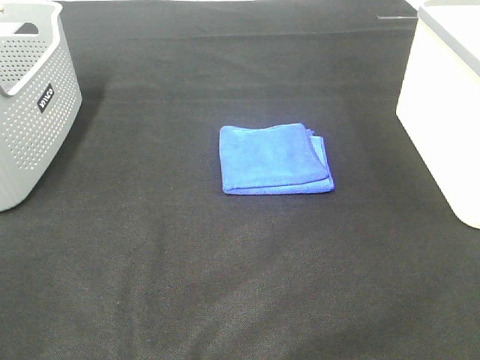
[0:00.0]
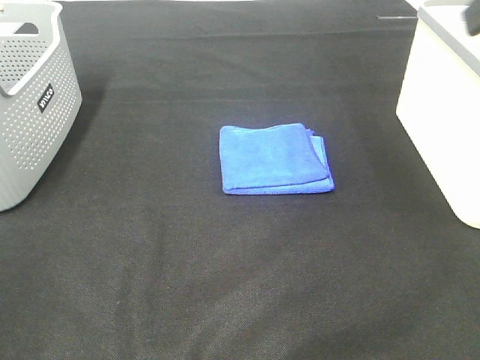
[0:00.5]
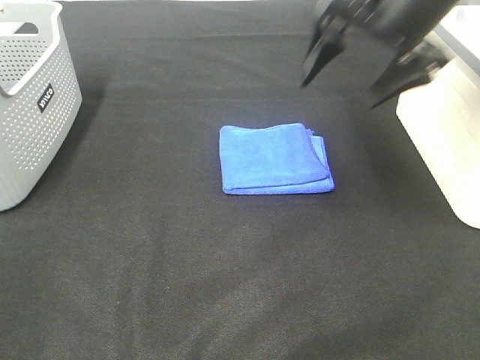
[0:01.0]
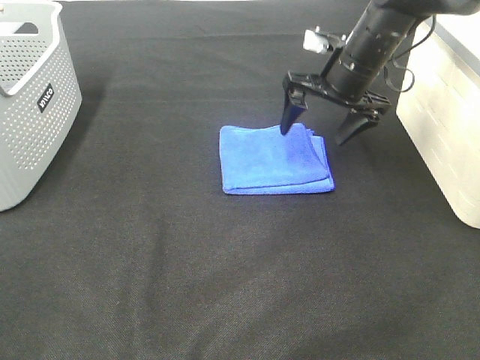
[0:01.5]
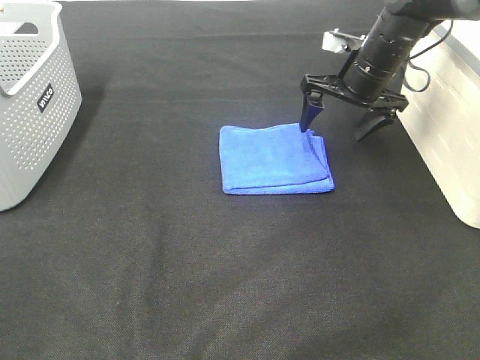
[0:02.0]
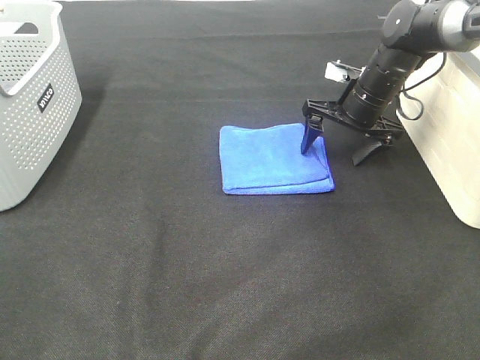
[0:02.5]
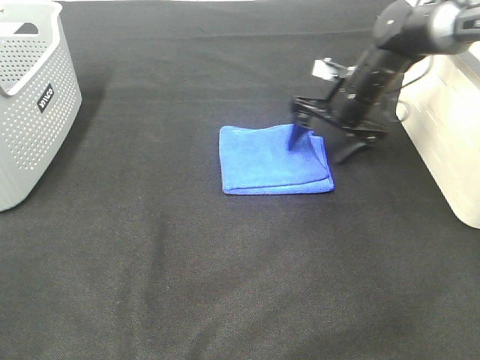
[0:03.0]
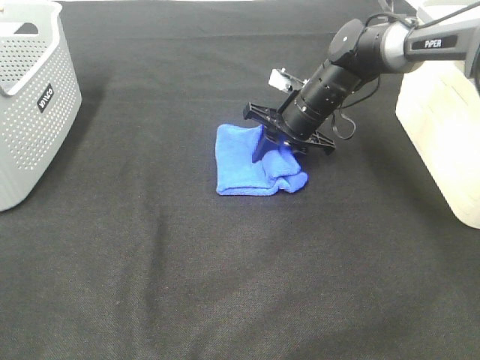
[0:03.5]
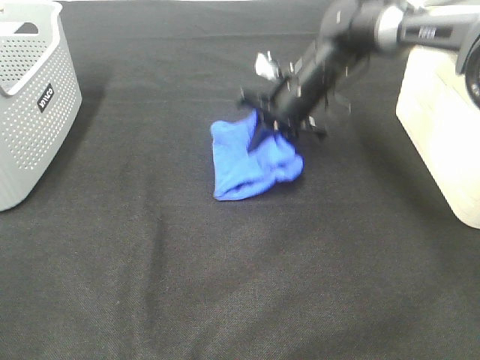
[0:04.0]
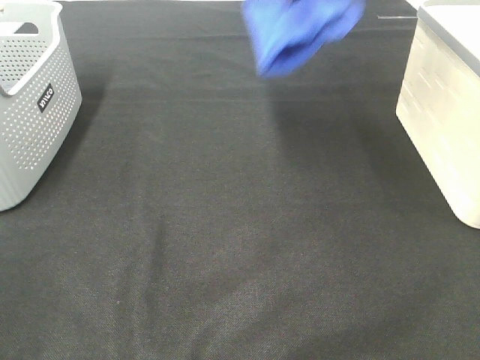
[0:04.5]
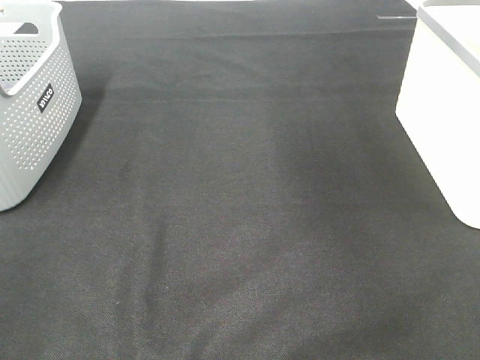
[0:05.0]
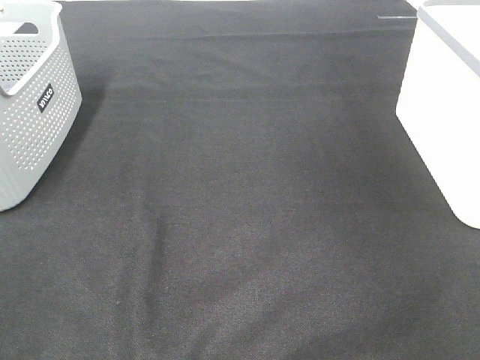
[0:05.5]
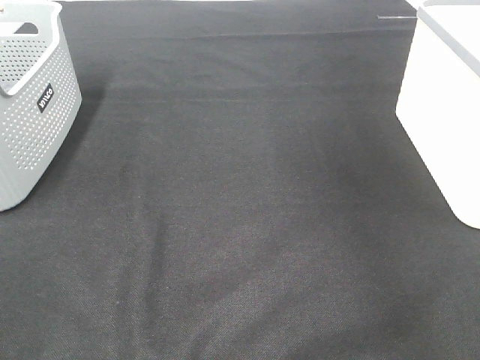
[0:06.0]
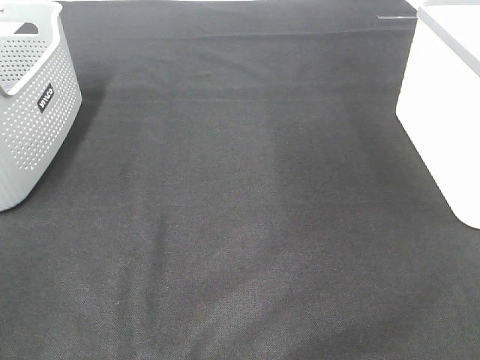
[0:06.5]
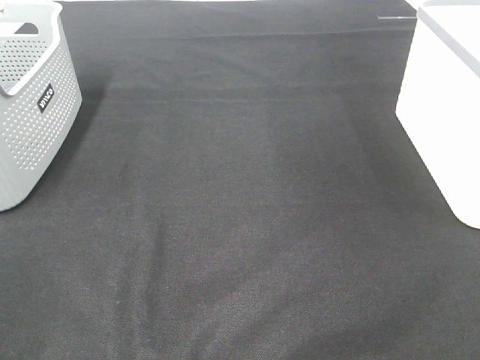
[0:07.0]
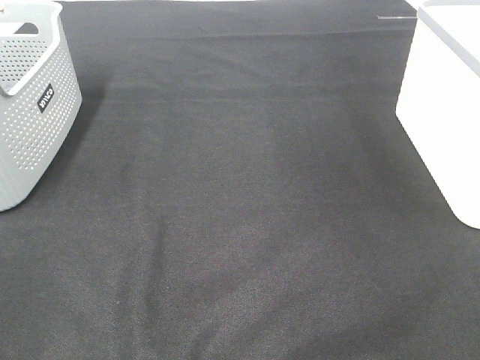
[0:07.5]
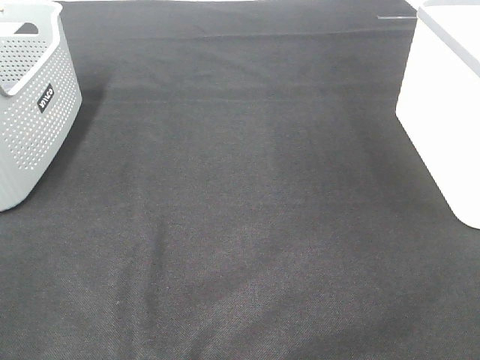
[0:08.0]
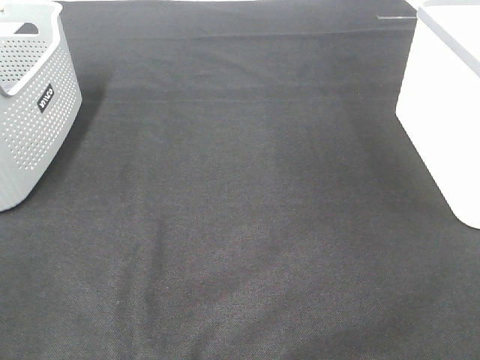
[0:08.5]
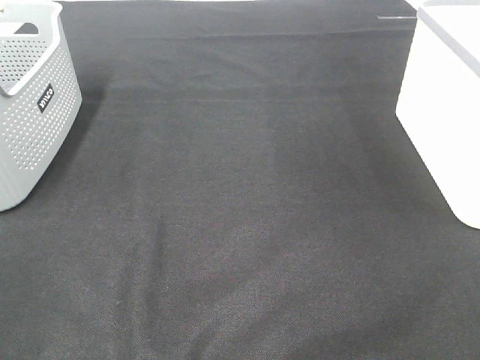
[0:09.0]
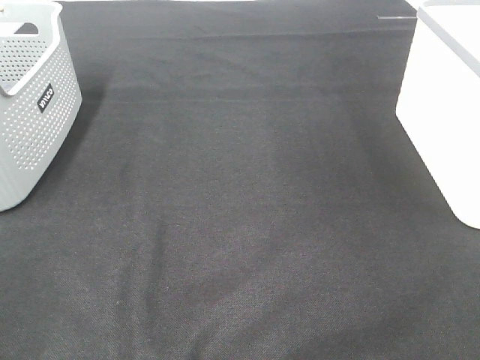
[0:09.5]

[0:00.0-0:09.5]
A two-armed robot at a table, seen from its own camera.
Step, 0:00.0 to 0:03.5: Right hand: grab the folded blue towel.
Step, 0:04.0 to 0:05.5: Right hand: place the blue towel in right basket.
0:00.0 to 0:02.0: The right gripper goes roughly 40 cm forward and downward.
0:02.0 to 0:04.0: The right gripper moves to the left, some 10 cm, and closes its fingers.
0:04.0 to 0:05.5: The right gripper heads to the right and upward, covering roughly 40 cm, and opens.

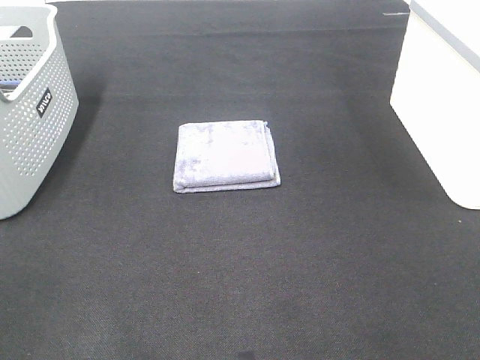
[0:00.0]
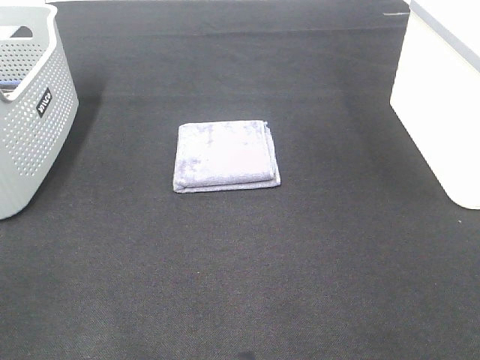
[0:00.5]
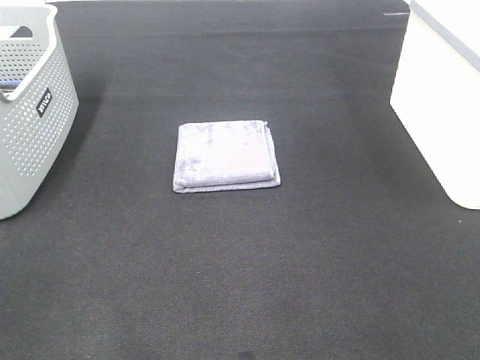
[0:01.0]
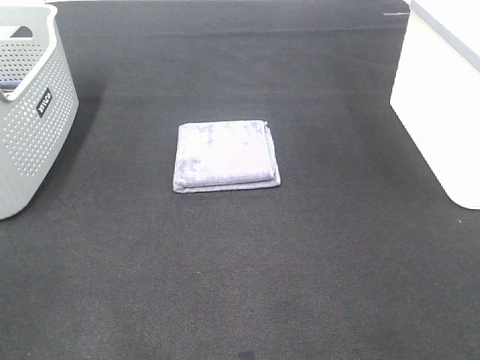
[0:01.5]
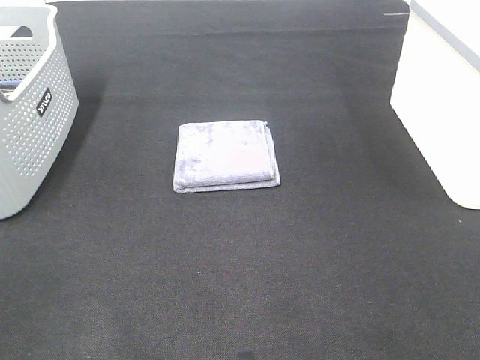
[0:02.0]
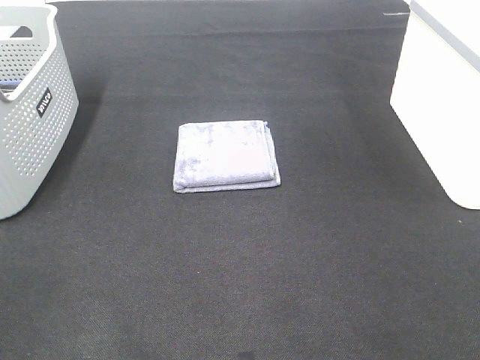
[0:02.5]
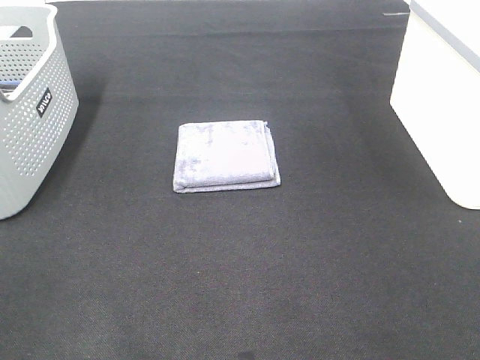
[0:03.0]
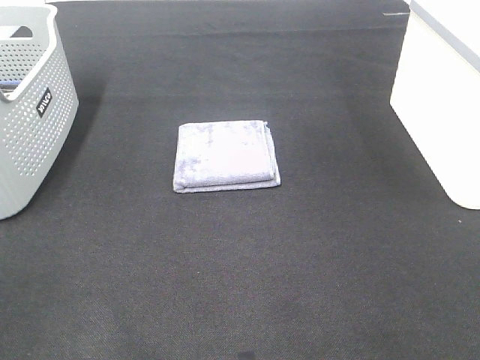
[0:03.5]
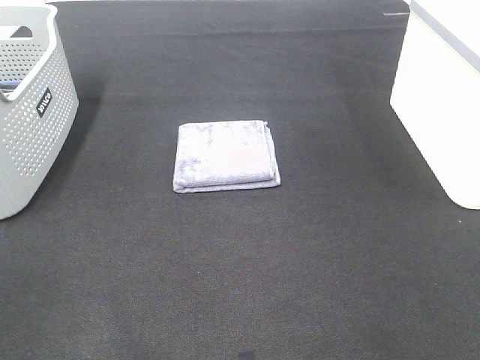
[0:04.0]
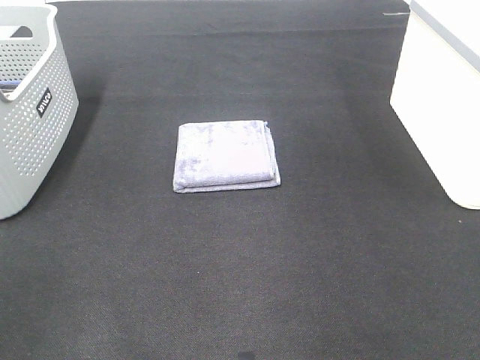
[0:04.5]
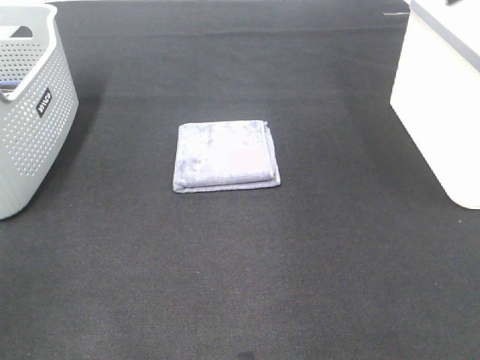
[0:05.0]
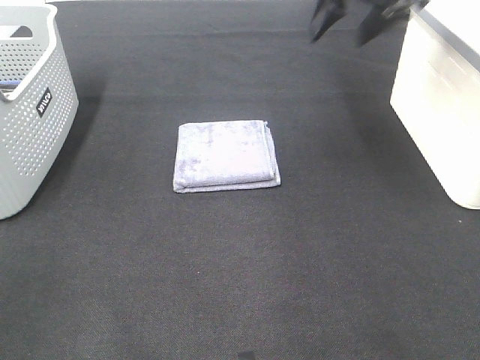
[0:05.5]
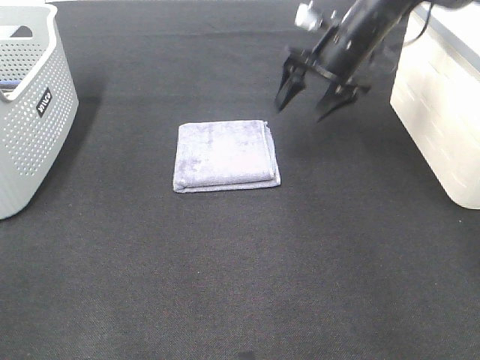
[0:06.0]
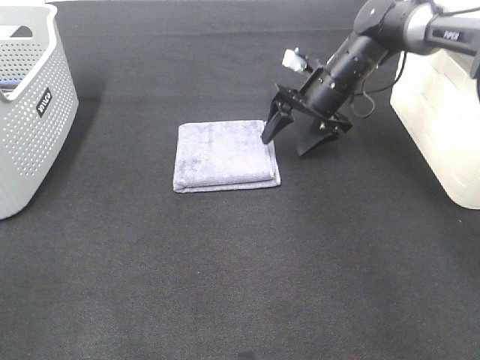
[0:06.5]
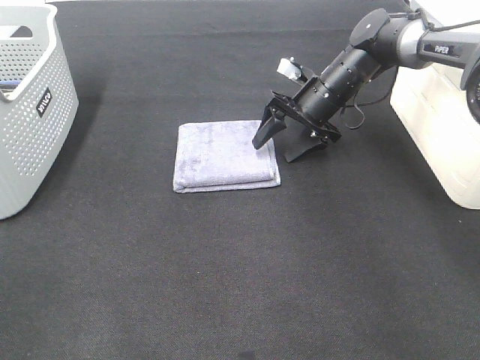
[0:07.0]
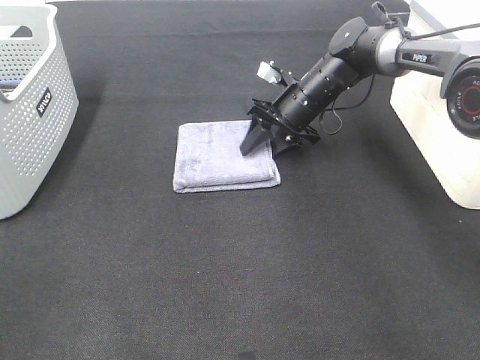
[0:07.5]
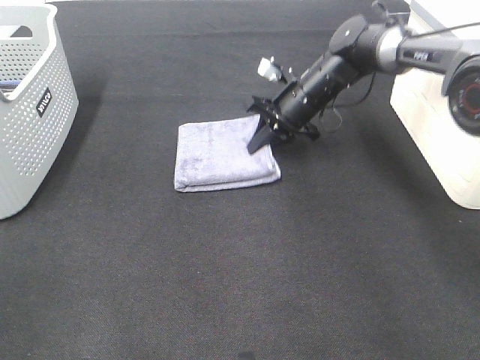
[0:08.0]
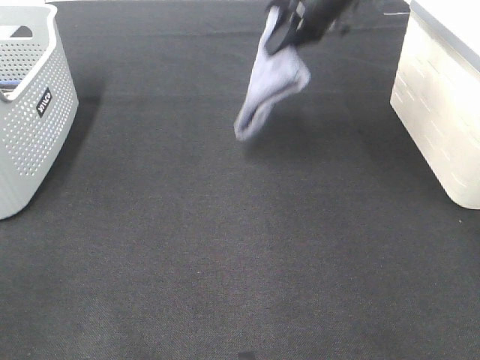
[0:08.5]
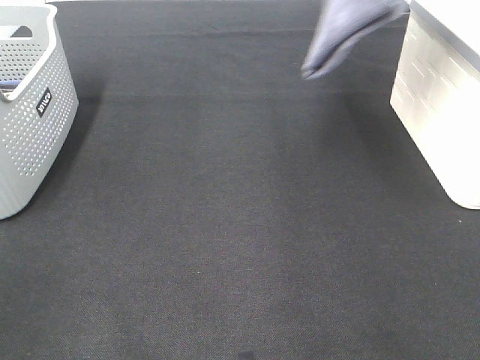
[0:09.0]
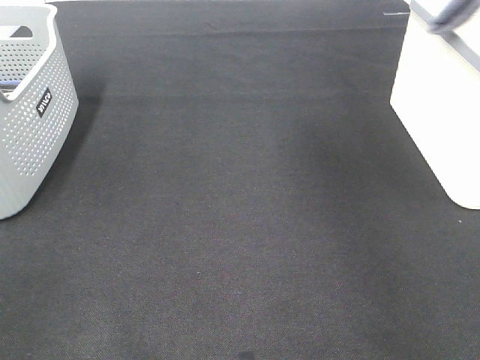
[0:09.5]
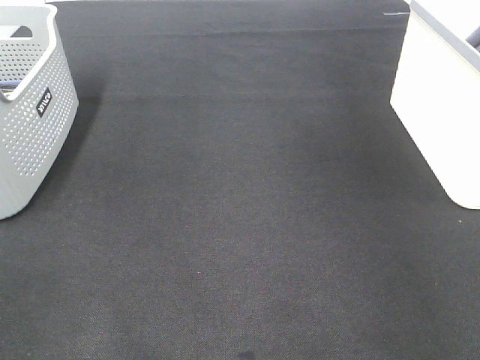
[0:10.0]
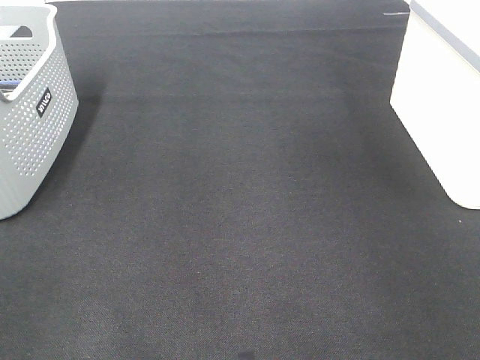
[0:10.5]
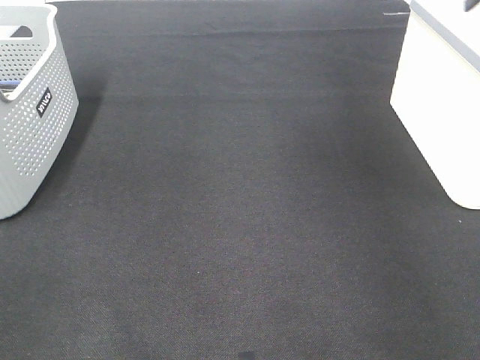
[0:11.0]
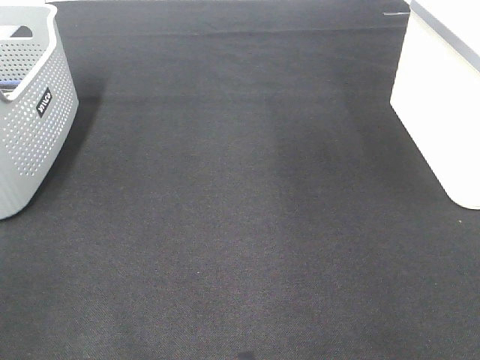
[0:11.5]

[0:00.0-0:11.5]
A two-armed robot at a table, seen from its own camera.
Step, 0:00.0 to 0:07.5: Right hand: grab the folded grey towel.
Step, 0:08.0 to 0:10.5: Right hand: place the grey towel in right basket.
0:00.0 to 0:02.0: Both grippers stay put.
0:04.0 to 0:06.0: The right gripper heads forward, covering approximately 50 cm.
0:06.0 to 0:07.5: The right gripper goes about 10 cm downward, and closes its fingers.
0:07.5 to 0:09.5: The right gripper goes approximately 40 cm upward and to the right, and closes.
0:09.5 to 0:11.5: The right gripper goes some 10 cm to the left, and opens.

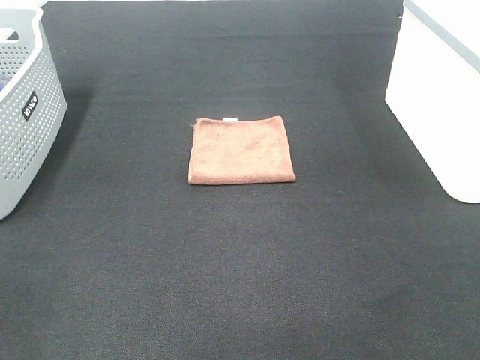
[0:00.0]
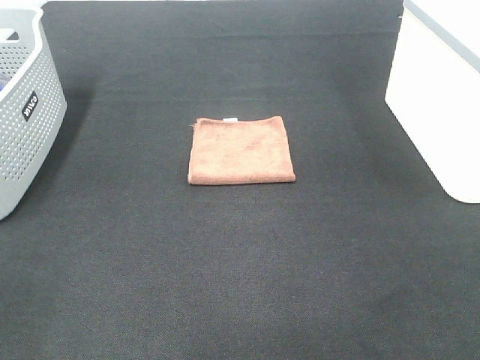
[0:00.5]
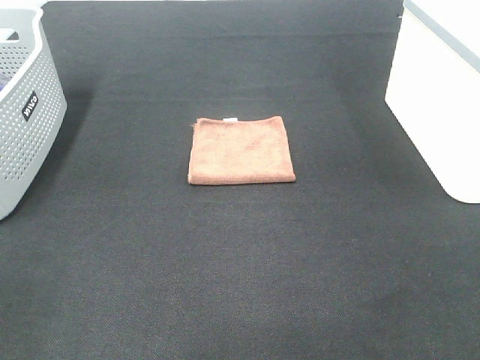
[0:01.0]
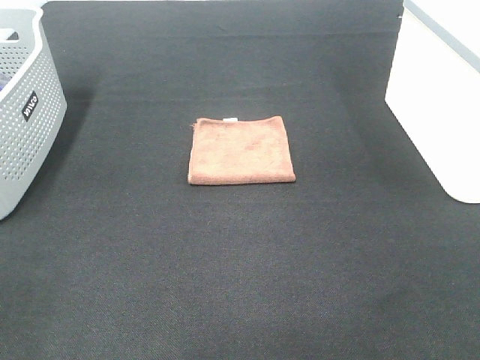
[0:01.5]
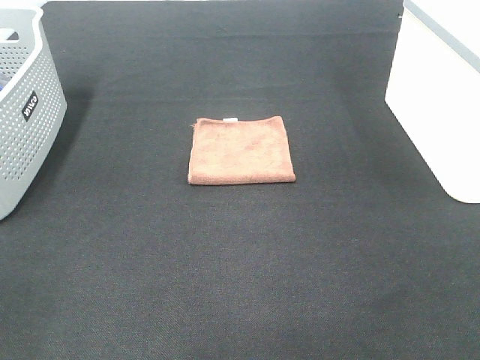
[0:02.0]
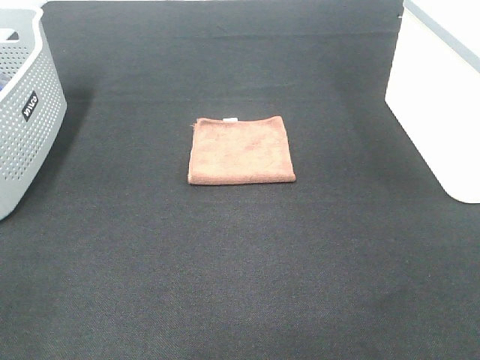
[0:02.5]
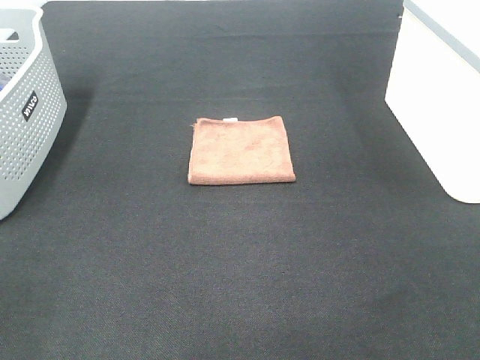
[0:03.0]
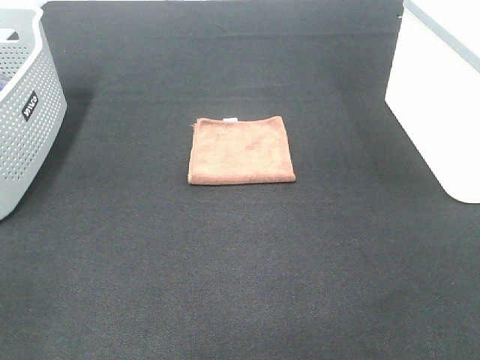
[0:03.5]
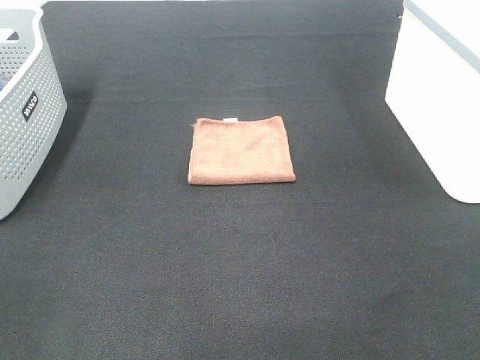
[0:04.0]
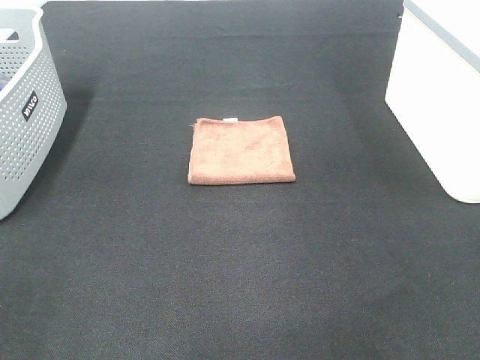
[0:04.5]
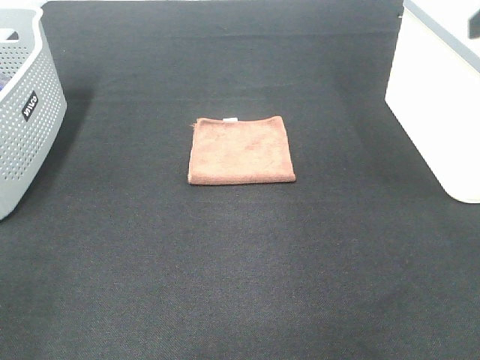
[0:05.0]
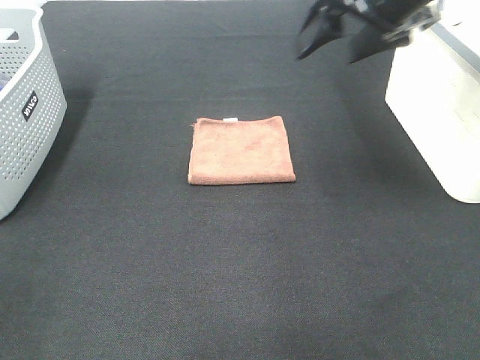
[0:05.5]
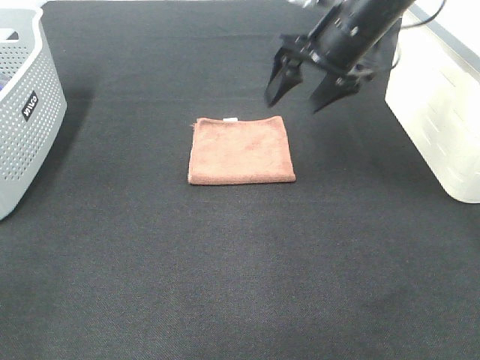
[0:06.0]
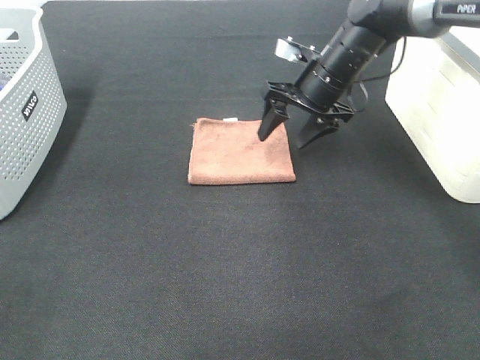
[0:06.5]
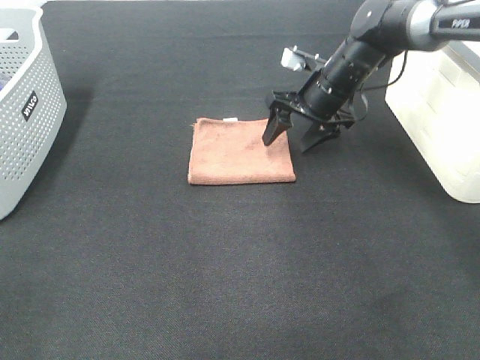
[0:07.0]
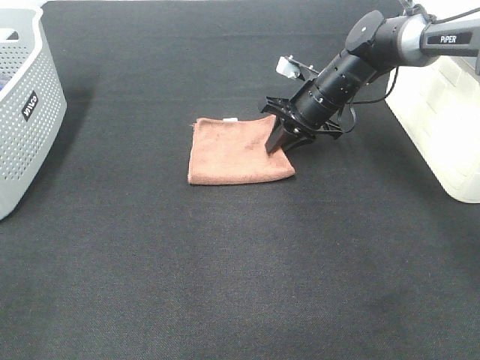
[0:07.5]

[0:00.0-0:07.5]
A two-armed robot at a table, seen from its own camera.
0:00.0 to 0:02.0: The two grippers keep their place.
0:04.0 to 0:05.5: The right gripper shifts about 35 cm forward.
0:05.5 to 0:07.5: The right gripper moves downward and forward, about 25 cm, and closes.
